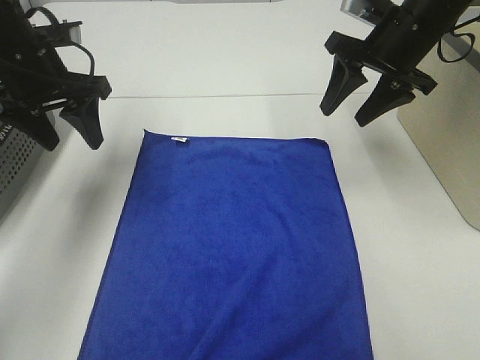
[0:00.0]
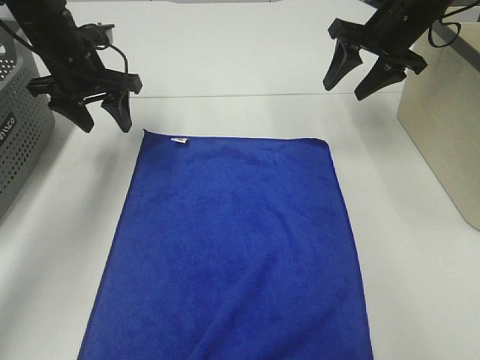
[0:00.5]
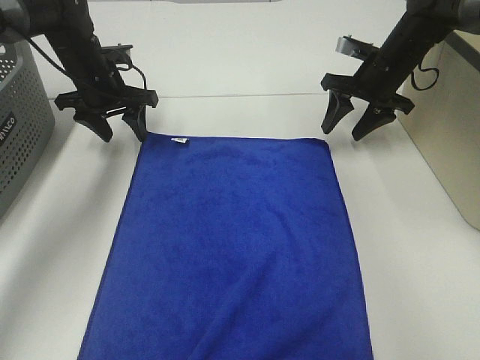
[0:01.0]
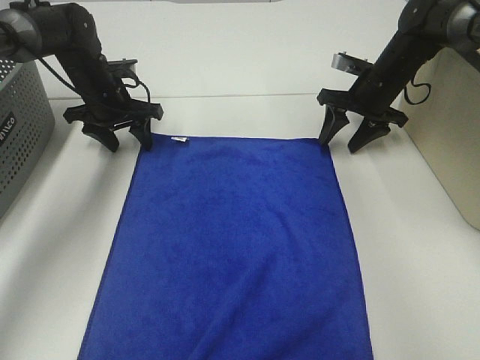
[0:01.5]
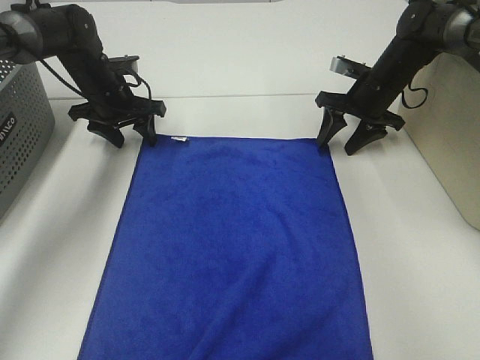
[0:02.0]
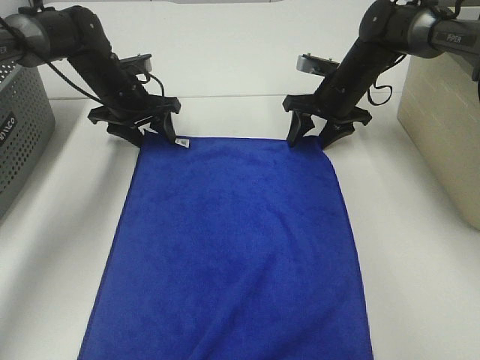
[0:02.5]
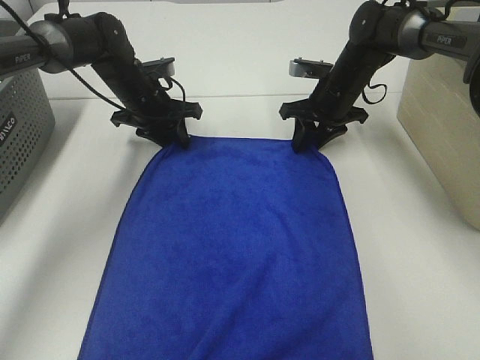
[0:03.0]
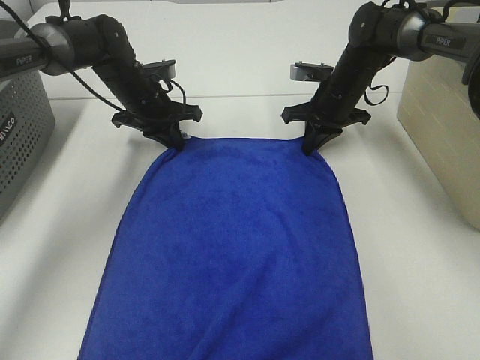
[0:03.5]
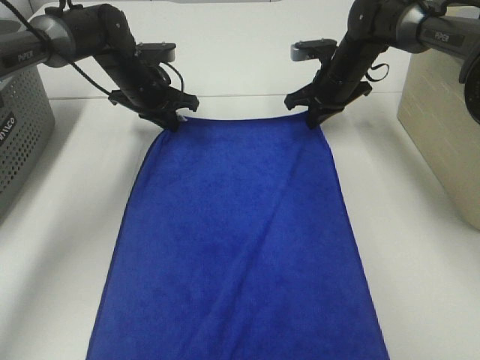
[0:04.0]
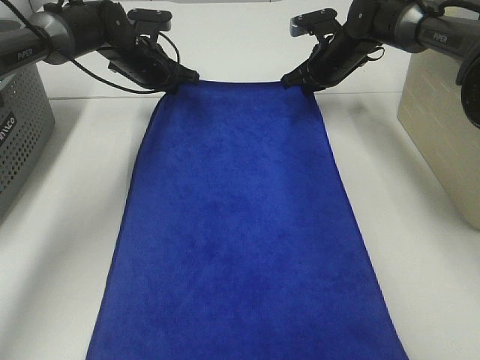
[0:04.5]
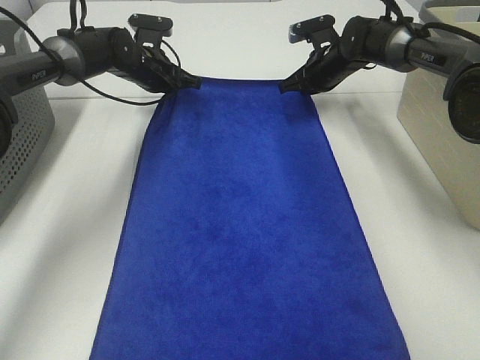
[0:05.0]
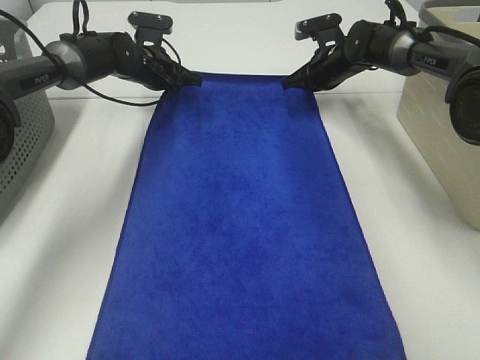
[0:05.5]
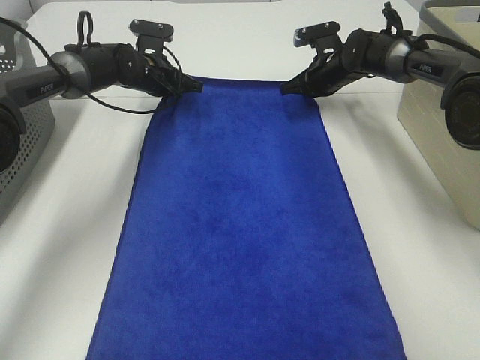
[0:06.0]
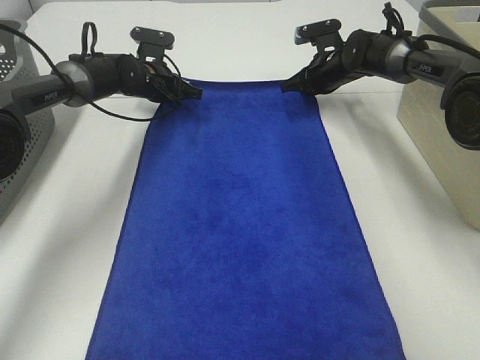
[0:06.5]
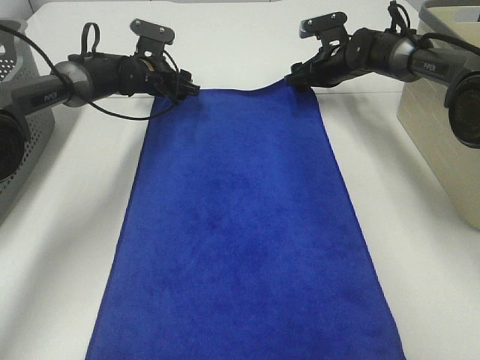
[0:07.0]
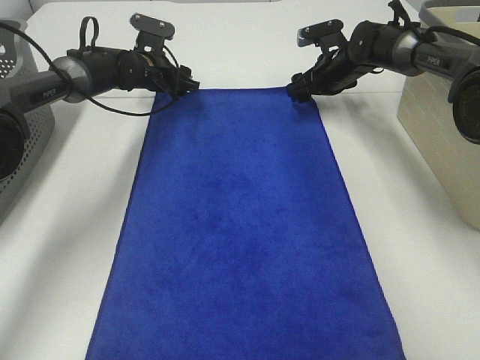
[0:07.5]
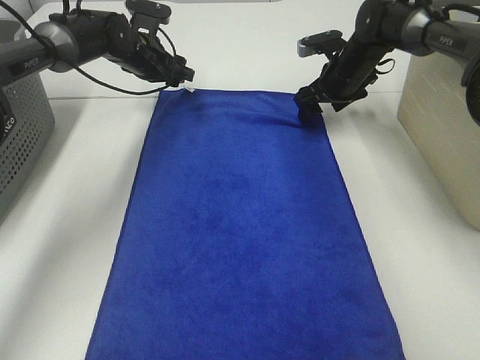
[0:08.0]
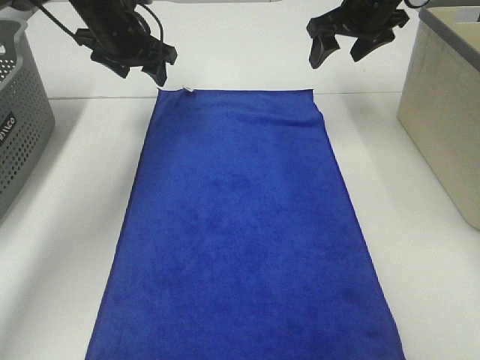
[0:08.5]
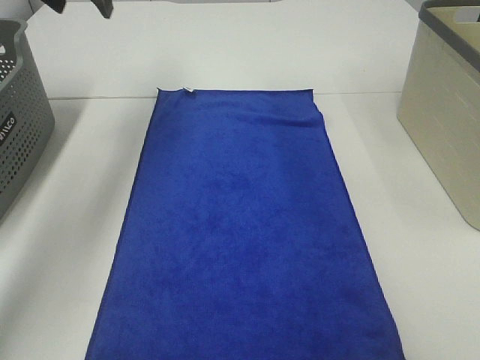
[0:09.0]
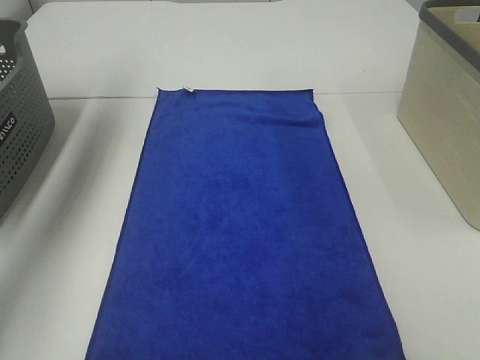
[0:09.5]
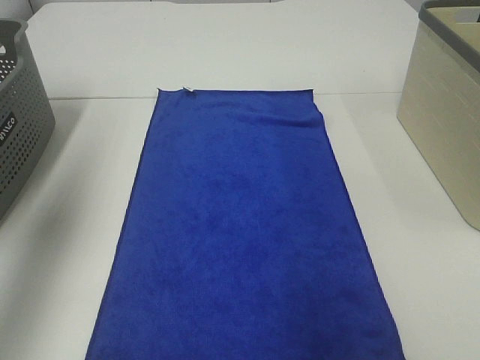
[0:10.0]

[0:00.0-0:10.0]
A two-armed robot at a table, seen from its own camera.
Task of the whole recording: Remove the towel and place it.
0:00.0 to 0:02.0: The right gripper is displaced downward and forward by approximately 15 cm, while the left gripper heads forward and downward, covering some 15 cm.
0:02.0 to 0:04.0: The left gripper moves some 5 cm, and closes, while the right gripper heads to the left, covering about 5 cm, and closes its fingers.
0:04.0 to 0:06.0: The left gripper moves some 5 cm, while the right gripper changes place by about 5 cm.
0:06.0 to 0:08.0: The right gripper opens up. The left gripper opens its fingers.
0:08.0 to 0:10.0: The left gripper moves backward, upward and to the left, roughly 40 cm; the right gripper goes some 50 cm backward and upward.

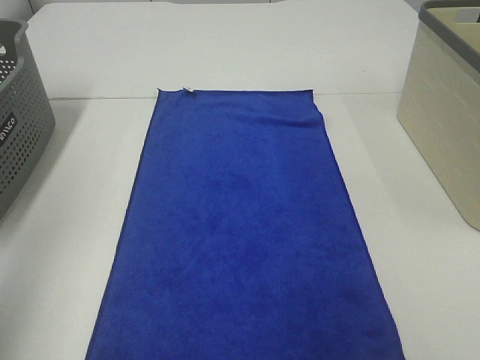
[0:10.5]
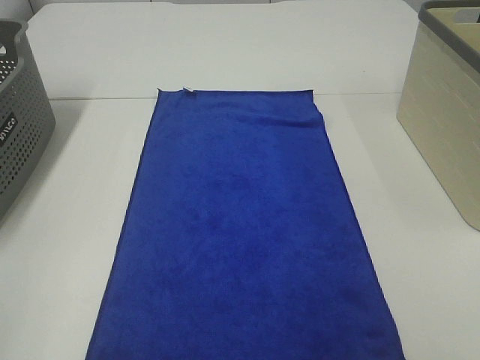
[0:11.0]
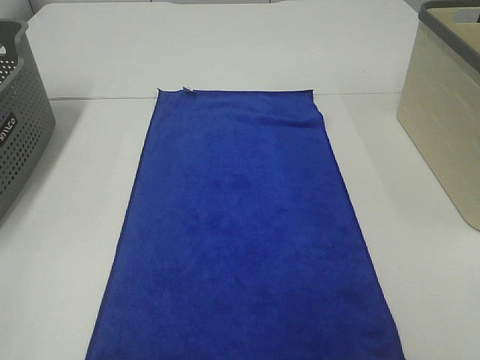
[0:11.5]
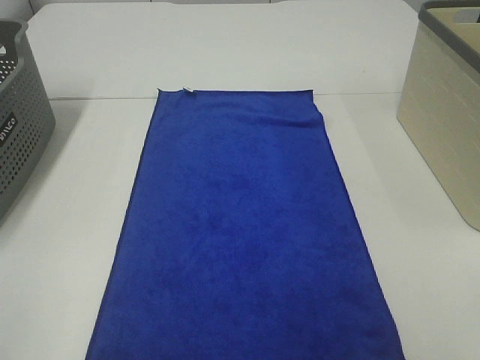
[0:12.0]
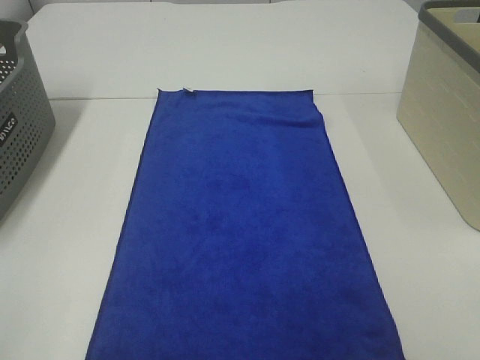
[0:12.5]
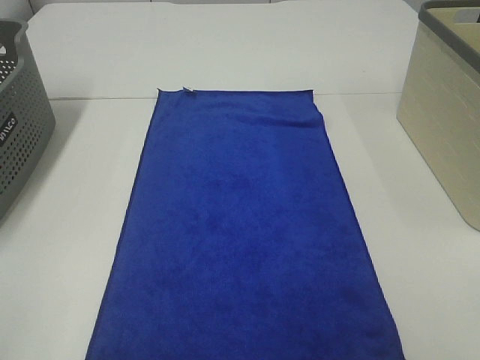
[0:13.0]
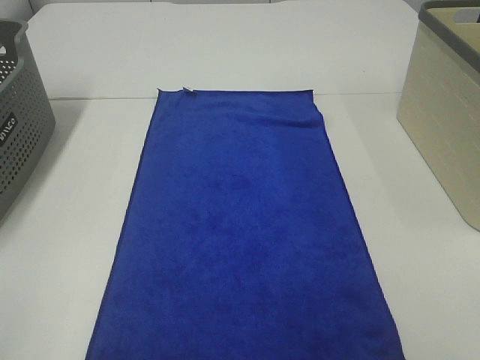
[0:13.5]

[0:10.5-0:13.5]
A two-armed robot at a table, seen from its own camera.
Task of the whole recording: Remove the towel and place it.
0:10.5 to 0:12.0: The left gripper shifts approximately 15 cm backward and downward.
0:12.0 to 0:13.5: The two grippers keep their place.

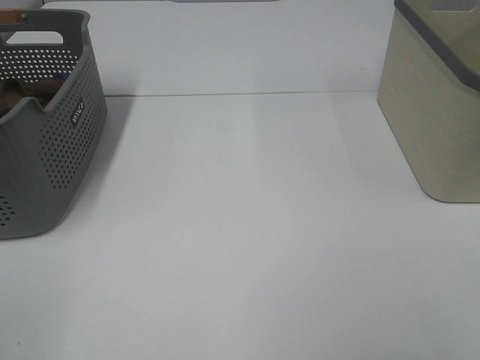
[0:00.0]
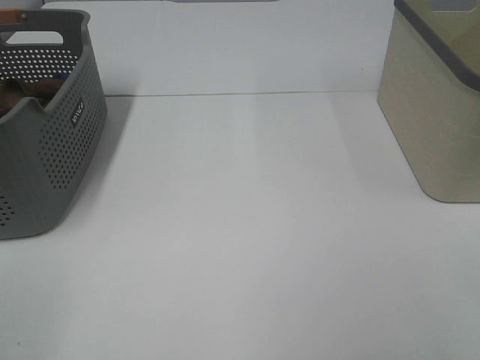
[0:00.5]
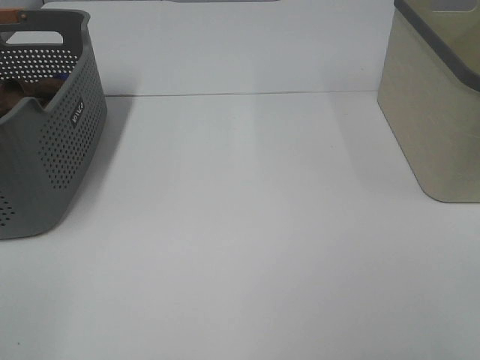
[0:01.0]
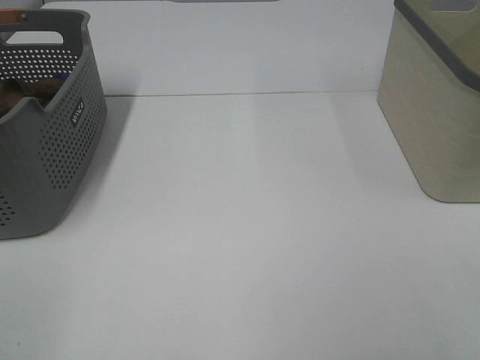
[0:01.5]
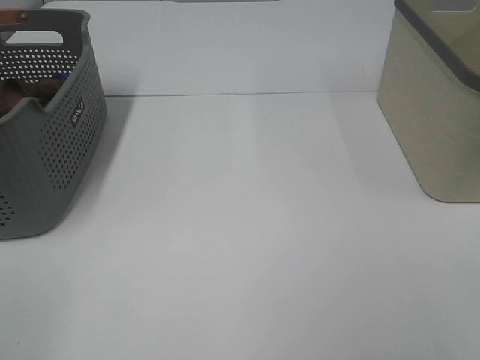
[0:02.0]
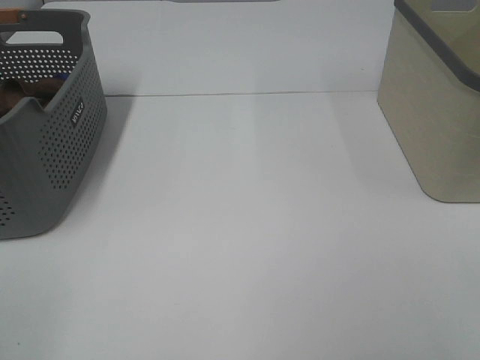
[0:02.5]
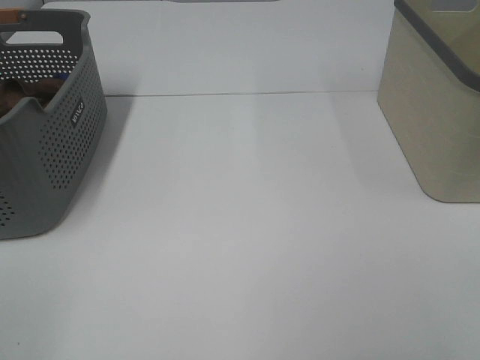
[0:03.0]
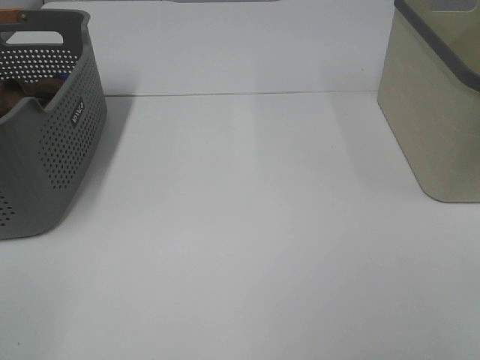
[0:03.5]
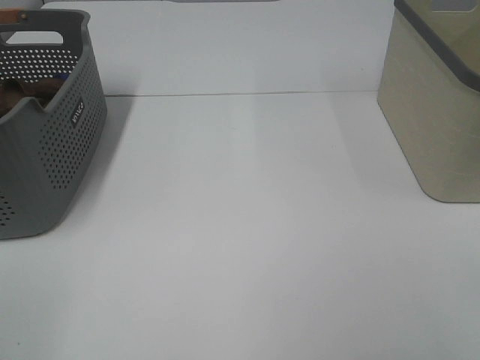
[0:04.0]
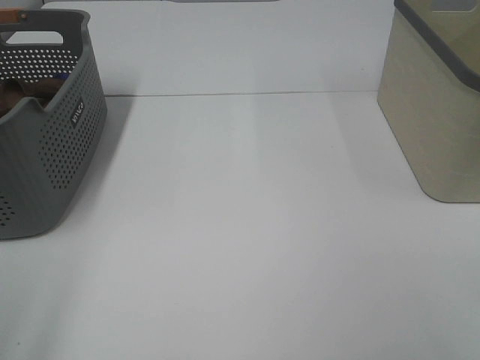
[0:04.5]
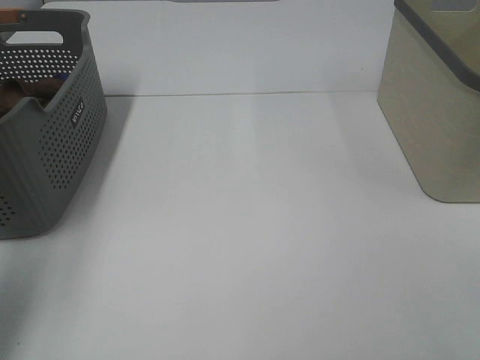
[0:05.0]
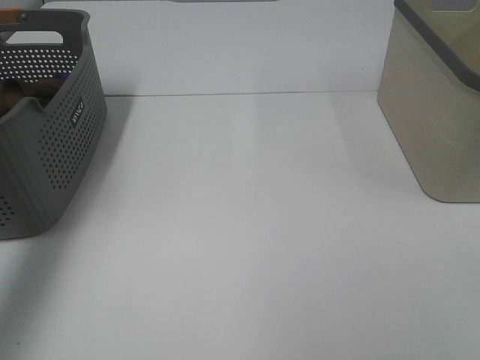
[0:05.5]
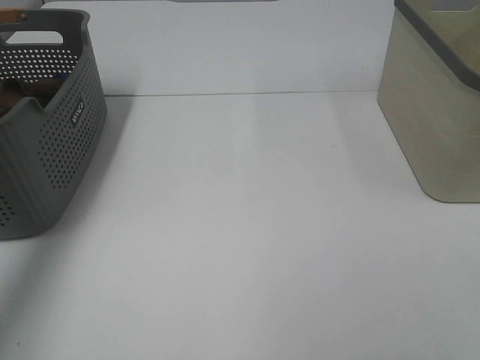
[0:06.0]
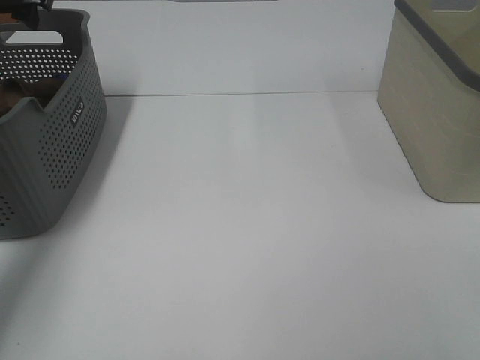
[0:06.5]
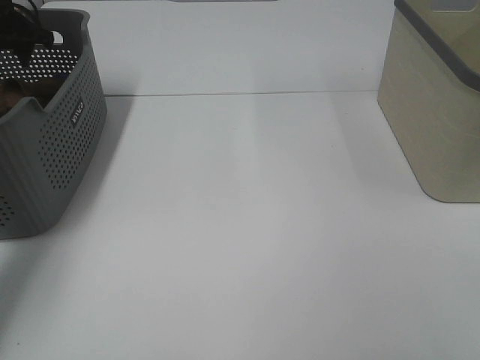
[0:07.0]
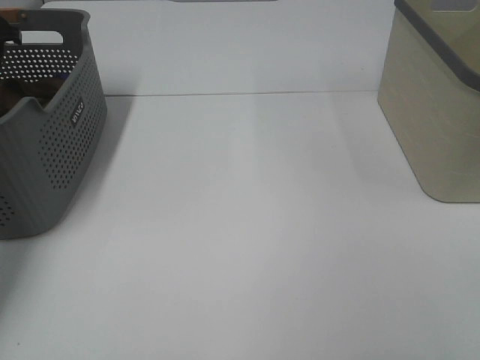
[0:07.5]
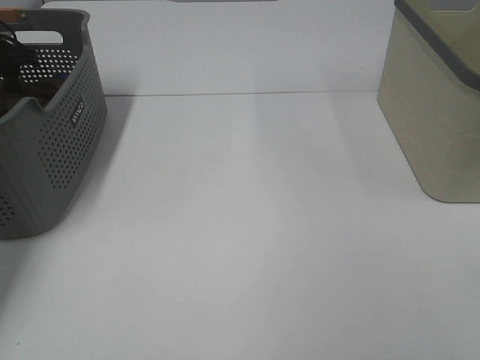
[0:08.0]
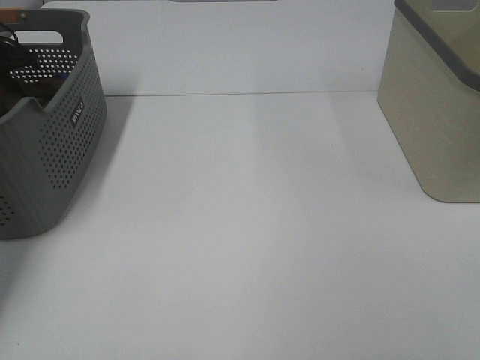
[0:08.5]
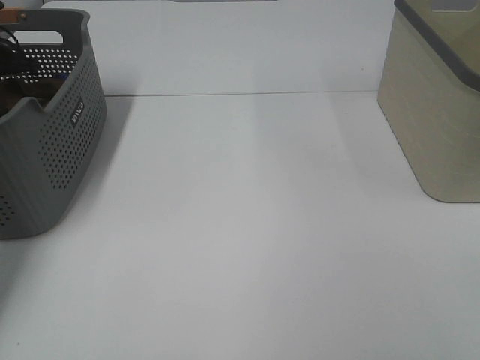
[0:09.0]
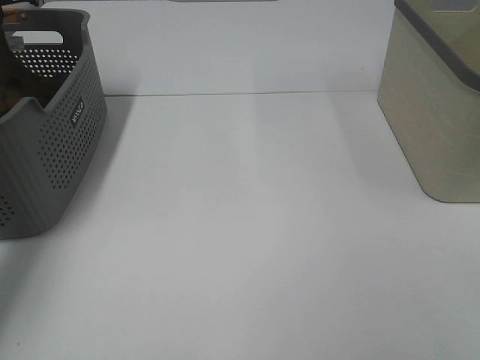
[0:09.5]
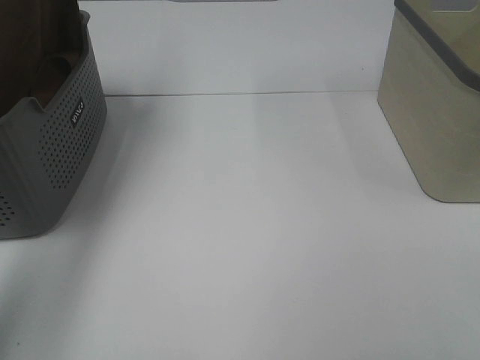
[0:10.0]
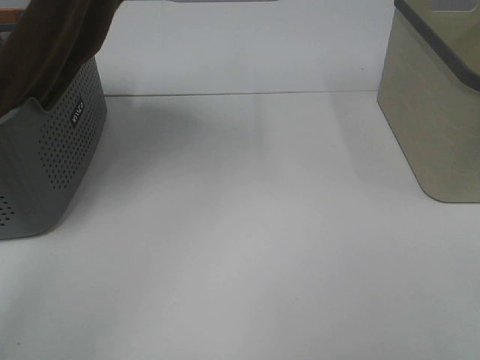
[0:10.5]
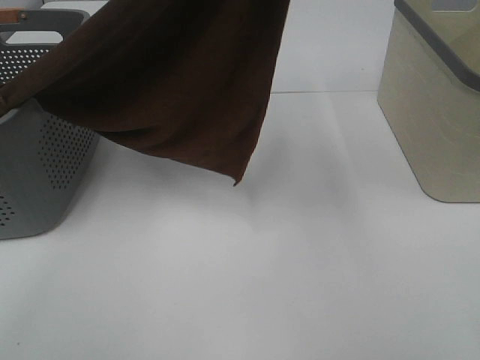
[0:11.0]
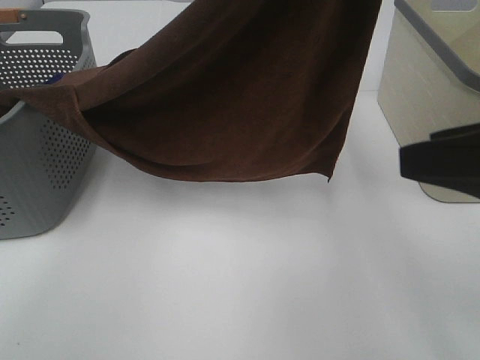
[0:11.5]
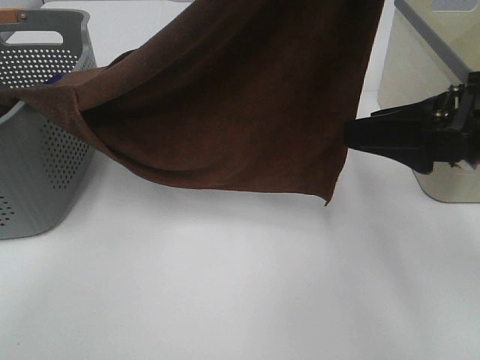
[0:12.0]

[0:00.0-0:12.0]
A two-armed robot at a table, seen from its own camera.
Task of the whole recording: Remove the towel and place it.
0:00.0 to 0:04.0: Both grippers stay put.
0:04.0 to 0:06.0: The left gripper travels forward by roughly 40 cm.
0:06.0 to 0:08.0: The left gripper is displaced downward, forward and to the left by about 20 cm.
0:08.0 to 0:10.0: The left gripper heads upward and to the right, covering approximately 25 cm, and closes up.
0:10.0 to 0:12.0: The left gripper heads to the right and backward, covering roughly 30 cm; the right gripper goes about 20 cm forward.
